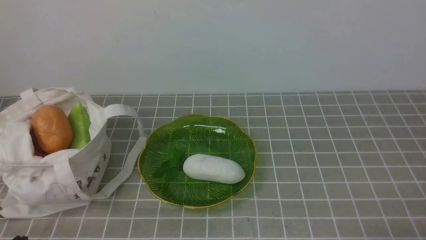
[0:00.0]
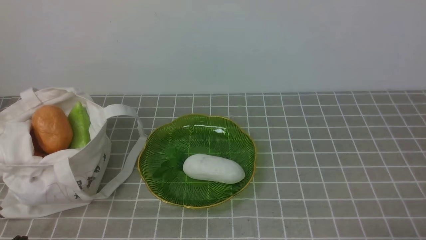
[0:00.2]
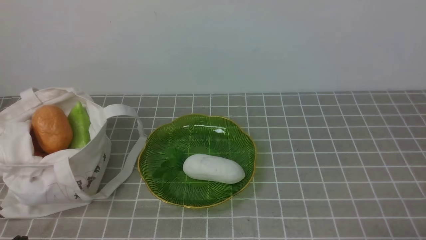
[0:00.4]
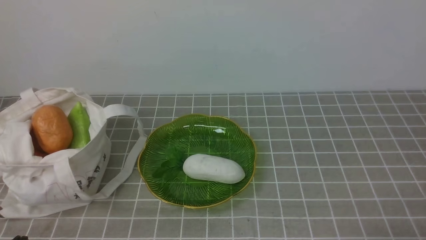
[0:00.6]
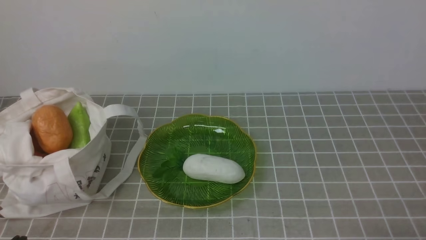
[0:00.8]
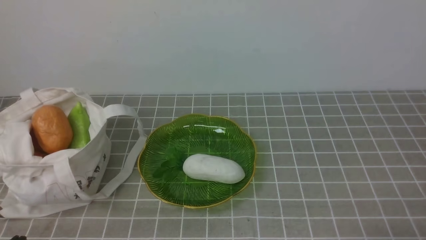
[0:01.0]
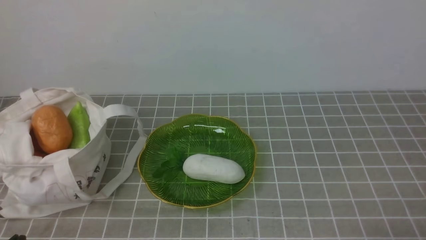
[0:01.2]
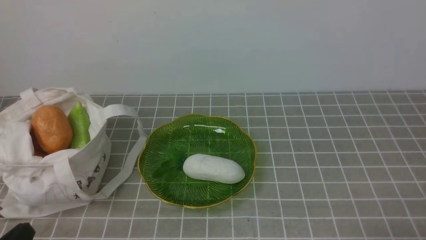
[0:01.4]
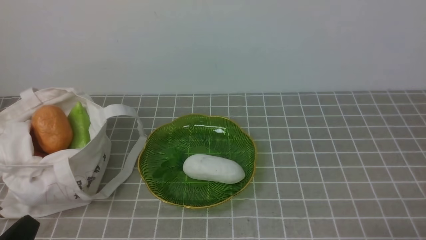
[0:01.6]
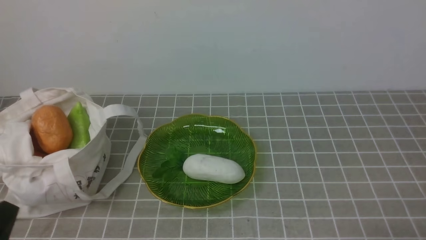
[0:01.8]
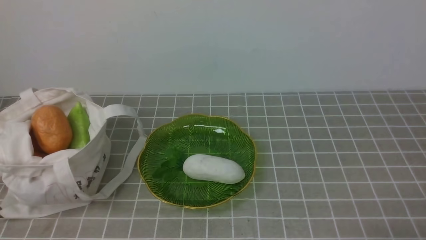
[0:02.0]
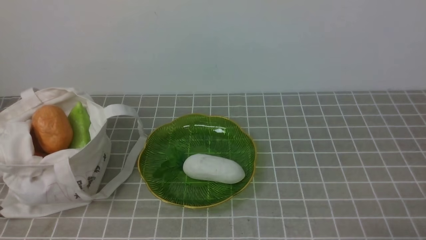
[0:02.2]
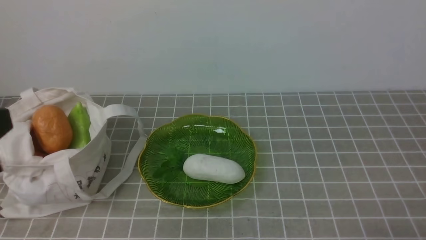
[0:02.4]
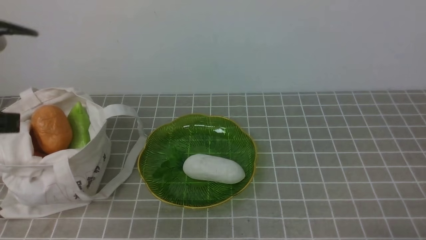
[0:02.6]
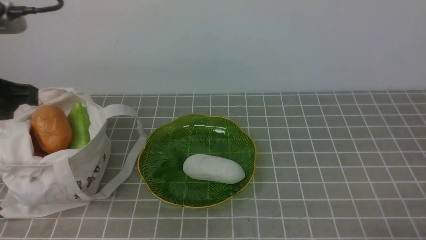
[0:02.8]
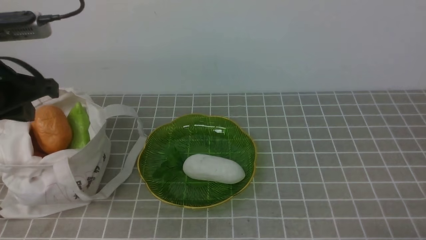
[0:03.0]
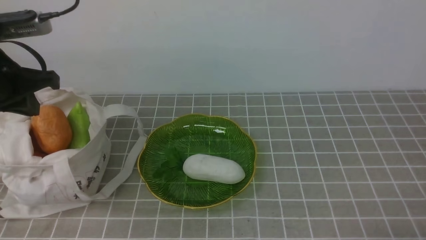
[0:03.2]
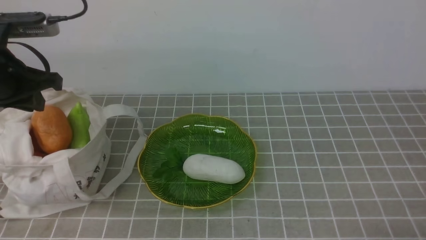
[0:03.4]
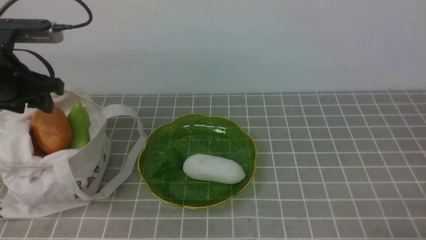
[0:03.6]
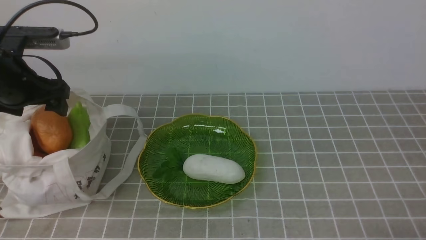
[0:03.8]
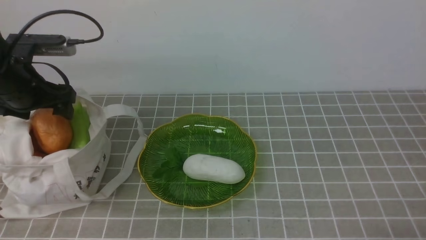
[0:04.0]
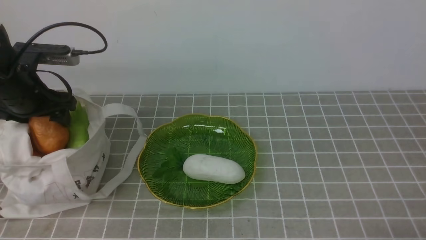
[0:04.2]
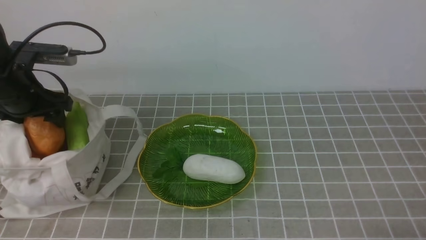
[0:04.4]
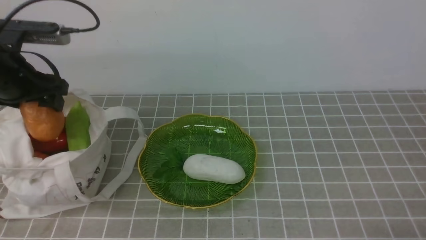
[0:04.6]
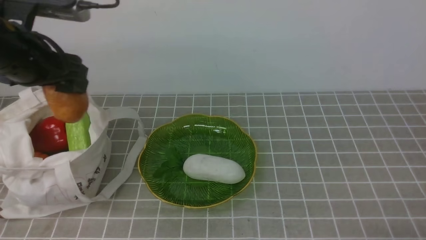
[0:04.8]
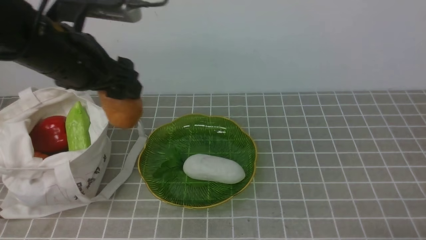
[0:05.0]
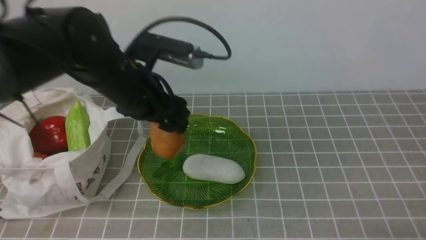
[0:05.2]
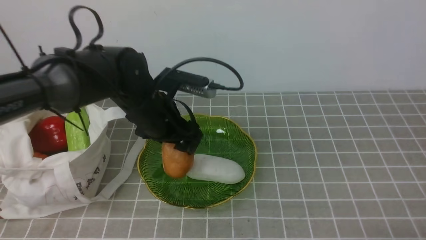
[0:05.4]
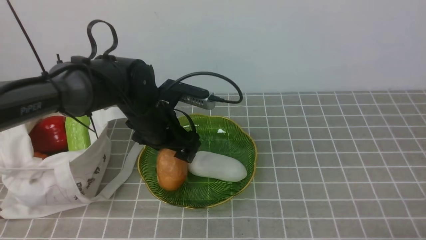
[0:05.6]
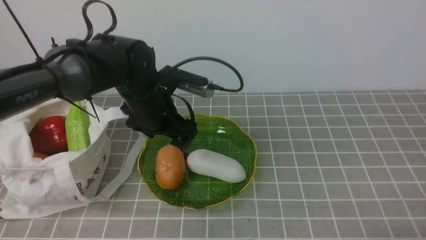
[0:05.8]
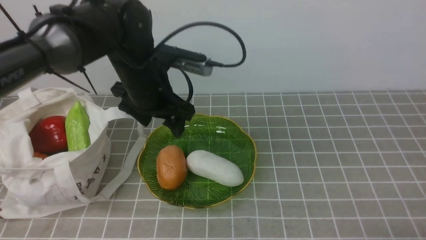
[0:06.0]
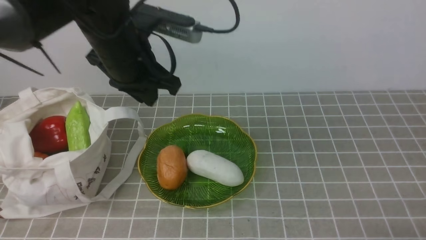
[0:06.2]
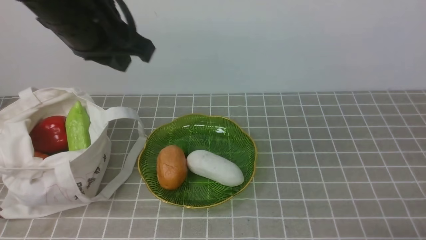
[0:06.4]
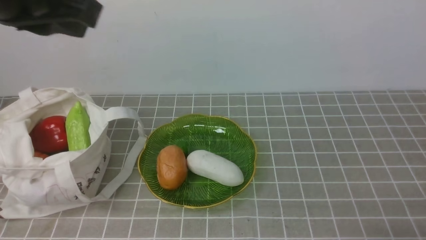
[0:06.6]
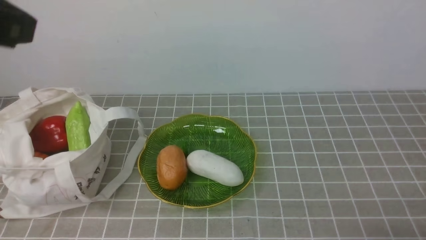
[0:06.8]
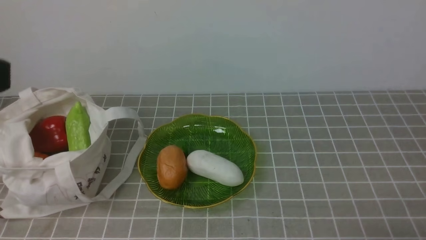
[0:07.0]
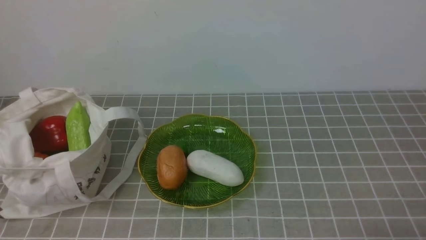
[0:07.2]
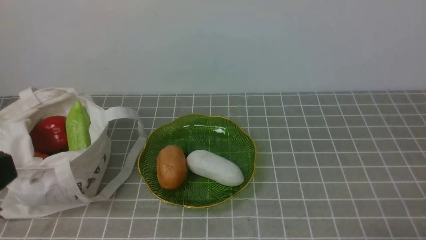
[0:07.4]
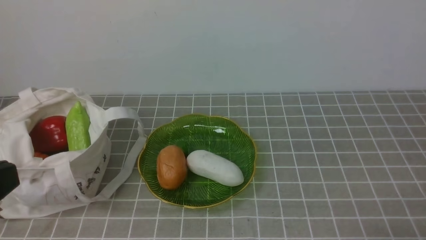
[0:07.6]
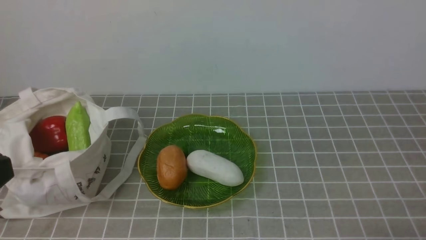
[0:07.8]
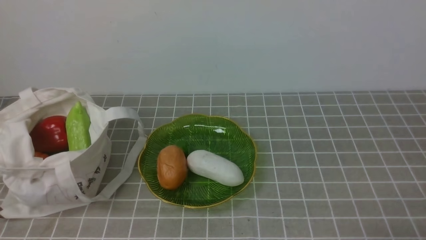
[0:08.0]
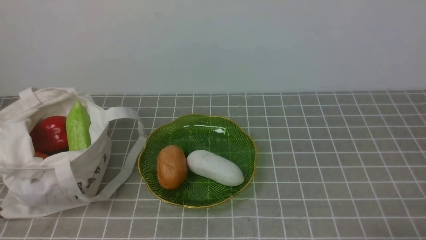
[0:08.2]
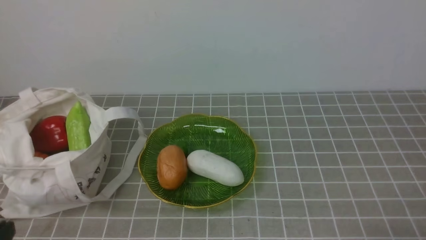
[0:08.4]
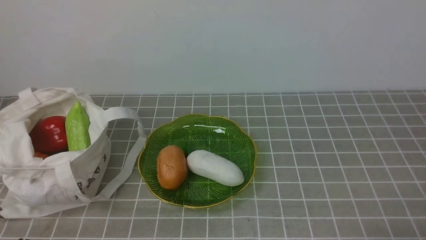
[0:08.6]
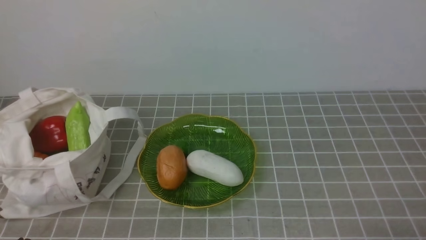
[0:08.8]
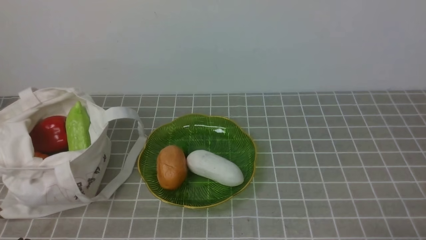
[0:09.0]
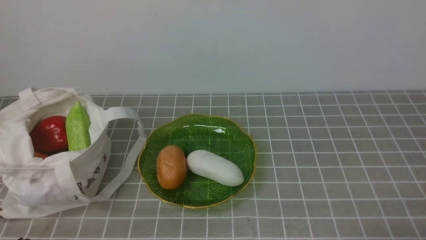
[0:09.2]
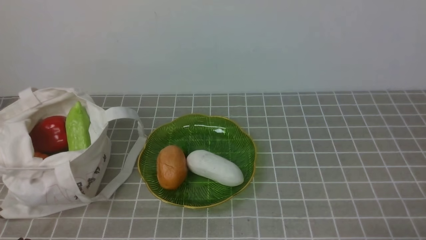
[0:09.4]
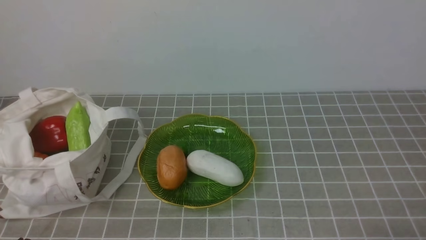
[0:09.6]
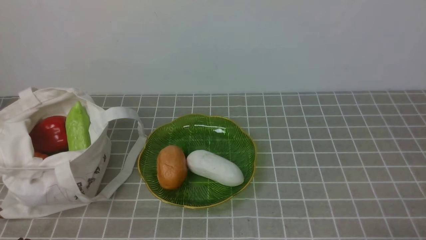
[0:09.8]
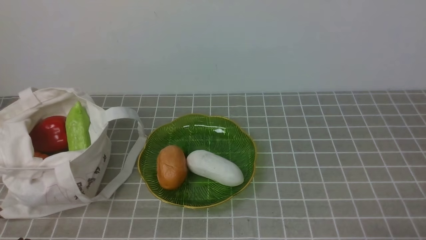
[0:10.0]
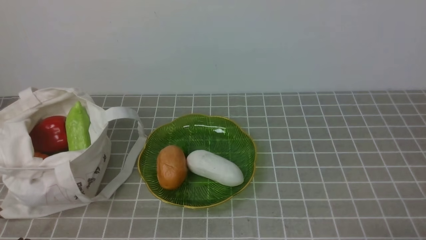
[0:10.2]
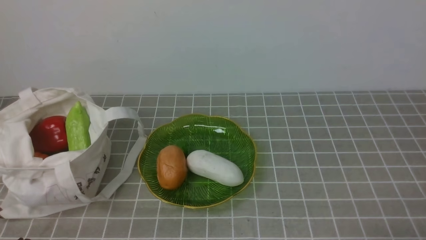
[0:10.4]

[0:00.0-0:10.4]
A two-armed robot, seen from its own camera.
Task of the whole recording: take vegetables from bag on grey coffee tablecloth place on plate.
Step, 0:00.0 to 0:04.2: Grasp the potato with left gripper.
Step, 0:04.4 to 0:06.0: Place the potato on the plate with left gripper.
0:01.4 to 0:03.0: The left gripper goes roughly 25 cm forward and upward.
0:03.0 to 0:04.4: The left gripper travels forward and downward by approximately 15 cm, and opens.
0:04.4 to 0:06.0: The left gripper shifts roughly 20 cm to the right.
0:06.0 to 0:07.4: The left gripper moves backward and upward, about 35 cm, and closes up.
0:09.0 to 0:10.4: The two grippers keep their place.

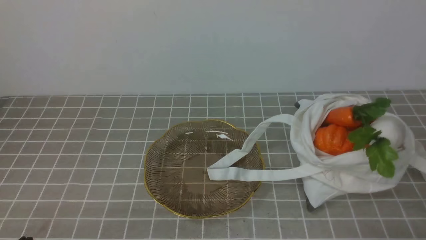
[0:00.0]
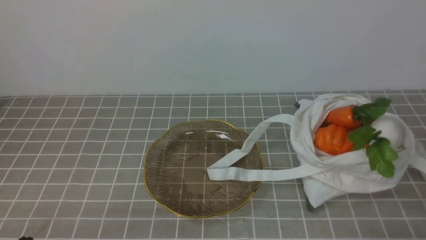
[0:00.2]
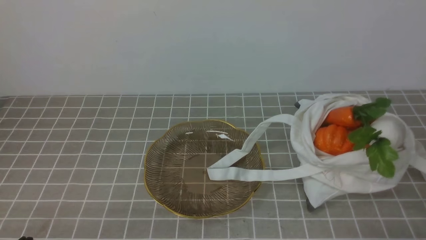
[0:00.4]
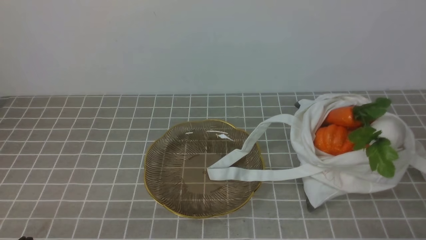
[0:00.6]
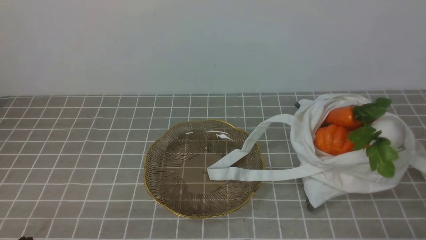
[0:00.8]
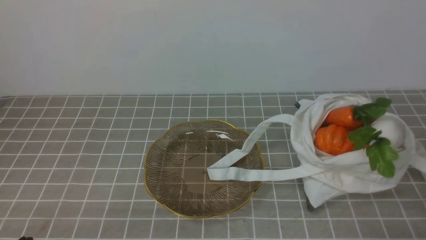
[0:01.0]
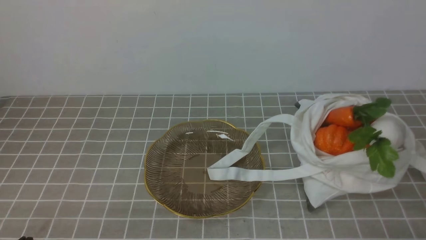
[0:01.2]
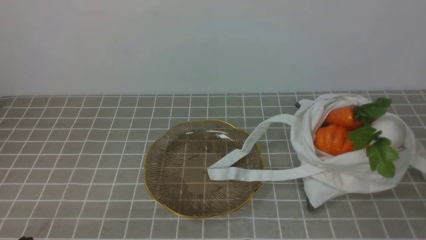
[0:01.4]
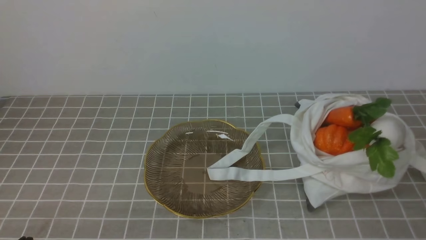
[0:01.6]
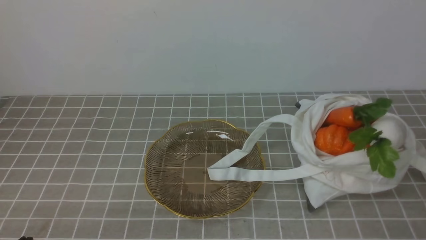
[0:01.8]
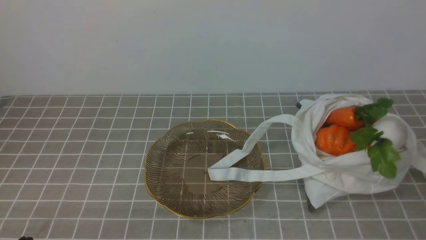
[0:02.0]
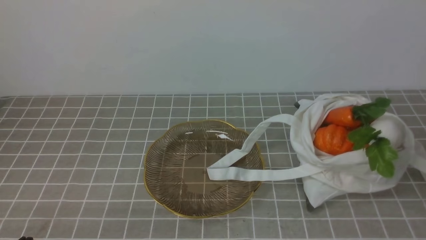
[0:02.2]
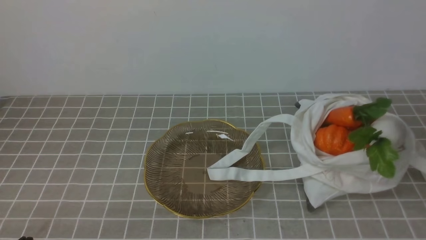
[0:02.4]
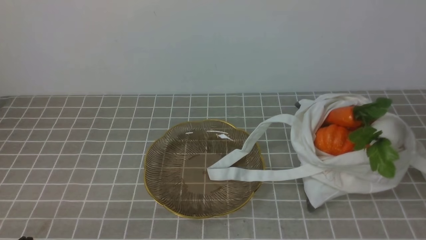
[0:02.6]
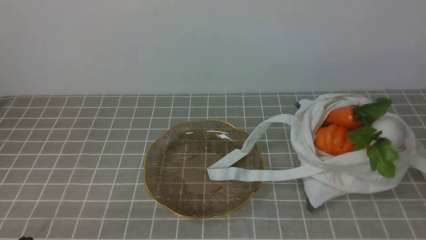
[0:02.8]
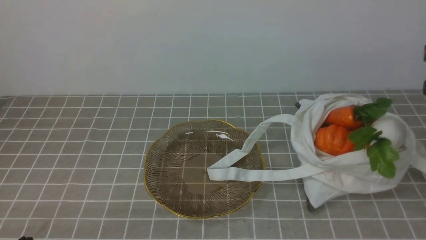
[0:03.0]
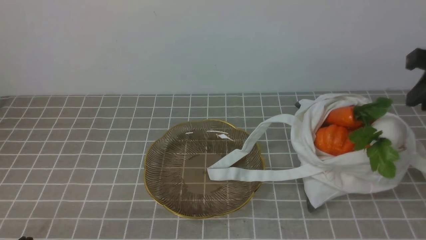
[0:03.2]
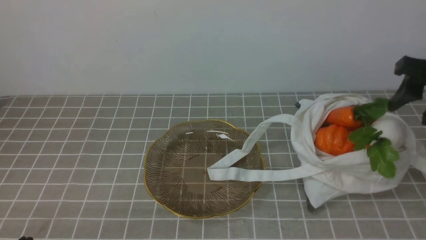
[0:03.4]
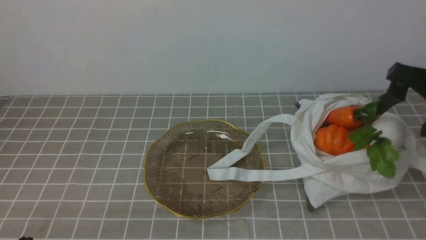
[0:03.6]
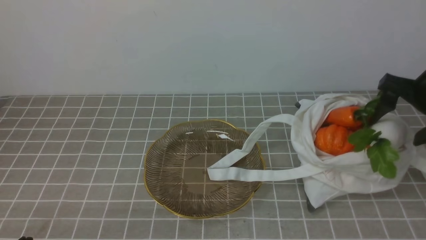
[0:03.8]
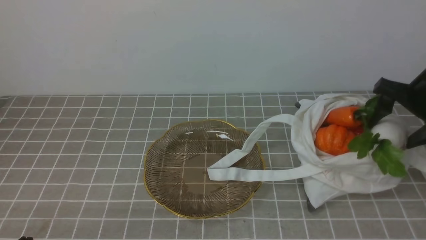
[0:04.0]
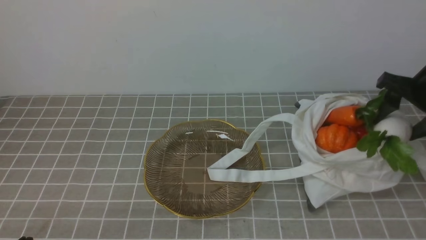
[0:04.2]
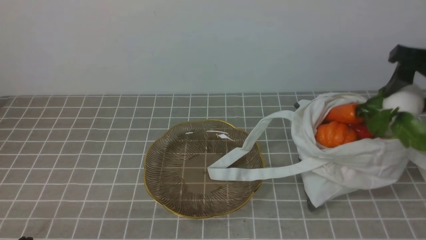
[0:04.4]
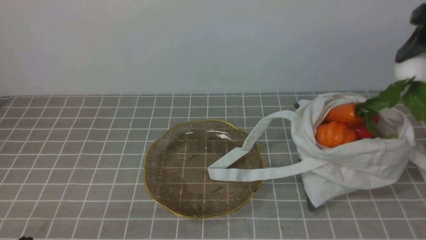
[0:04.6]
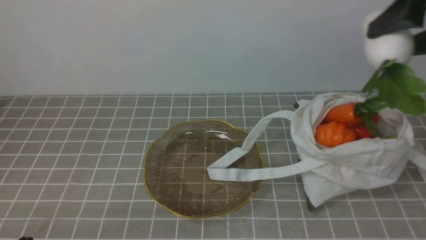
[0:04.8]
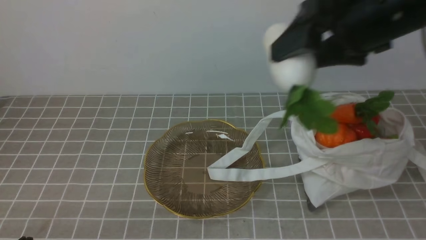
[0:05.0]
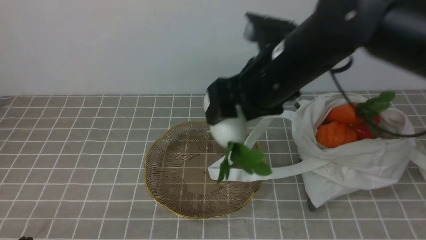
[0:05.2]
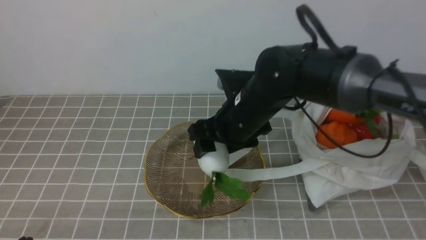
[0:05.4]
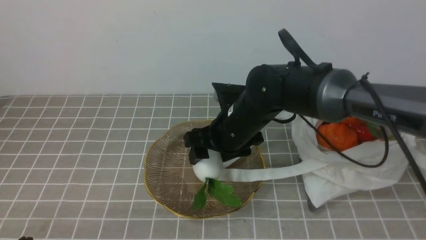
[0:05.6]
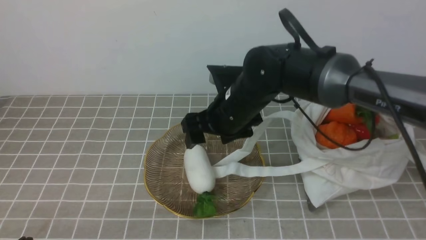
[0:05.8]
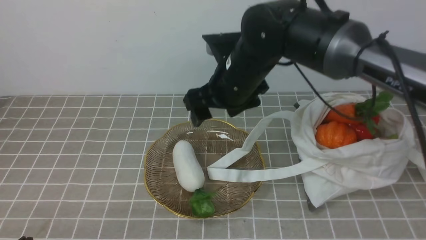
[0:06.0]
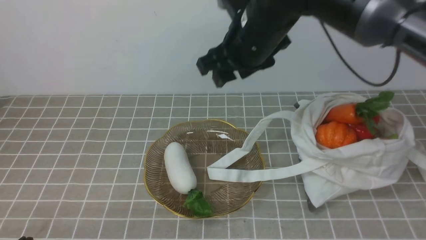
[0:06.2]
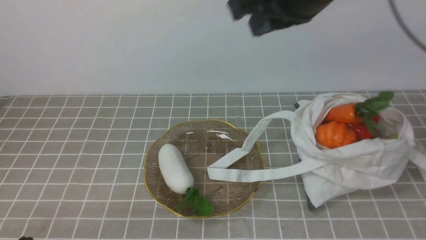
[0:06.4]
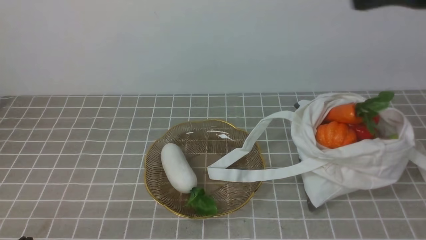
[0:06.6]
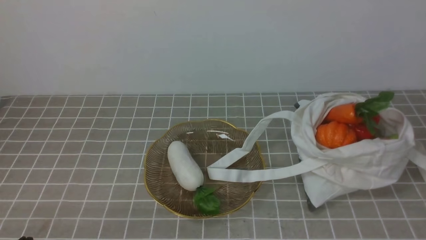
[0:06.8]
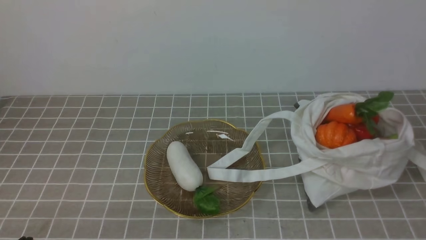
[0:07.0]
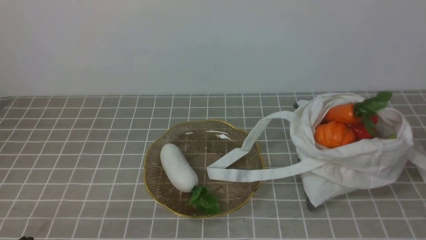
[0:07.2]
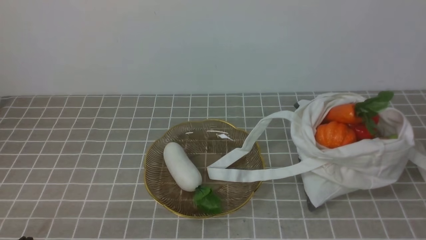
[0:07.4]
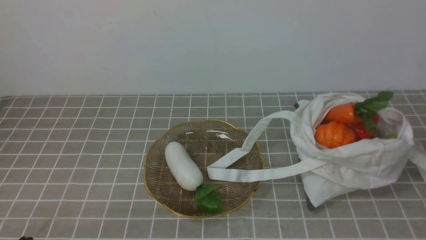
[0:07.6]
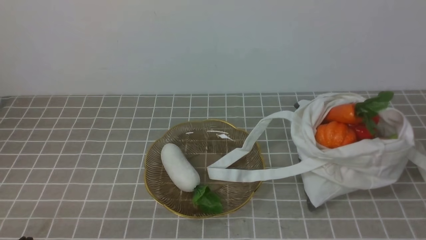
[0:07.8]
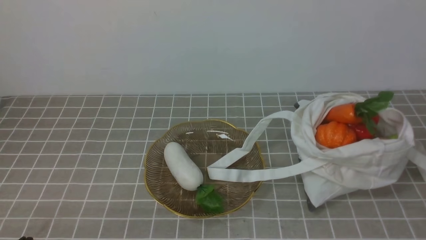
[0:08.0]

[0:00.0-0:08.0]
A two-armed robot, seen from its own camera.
Task of the whole recording: take vegetables from bag on grey coffee tablecloth place on plate.
Step, 0:00.0 to 0:04.0: Grasp the radish with right gripper.
Step, 0:04.2 to 0:06.0: Place the radish on the plate with right gripper.
0:01.6 to 0:03.2: The right gripper shifts some 25 cm forward and upward, and opens up.
0:03.2 to 0:04.8: The right gripper shifts approximately 10 cm to the left and upward, and opens.
0:04.8 to 0:06.4: The right gripper goes about 10 cm to the left, goes downward and returns, about 20 cm each way, and closes its fingers.
0:06.4 to 0:08.0: The right gripper is displaced backward, to the right and downward by some 35 cm.
